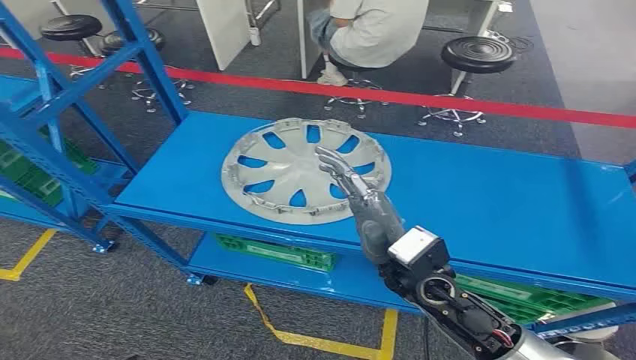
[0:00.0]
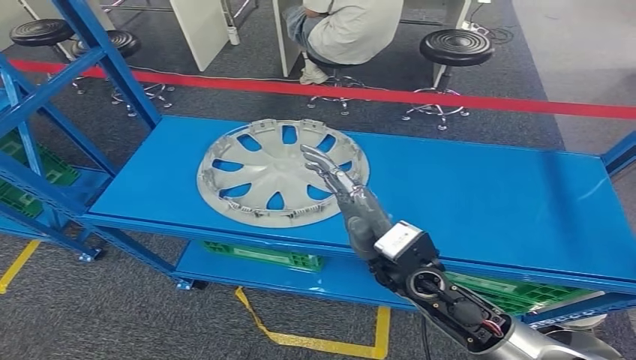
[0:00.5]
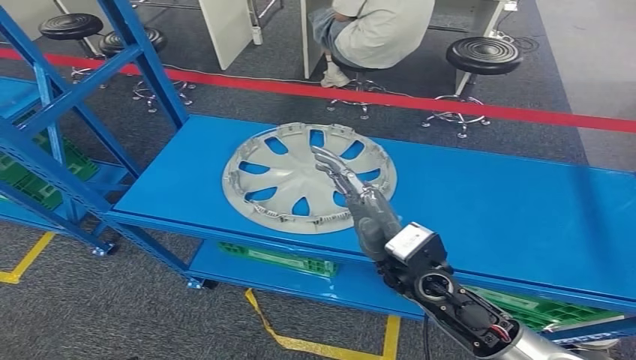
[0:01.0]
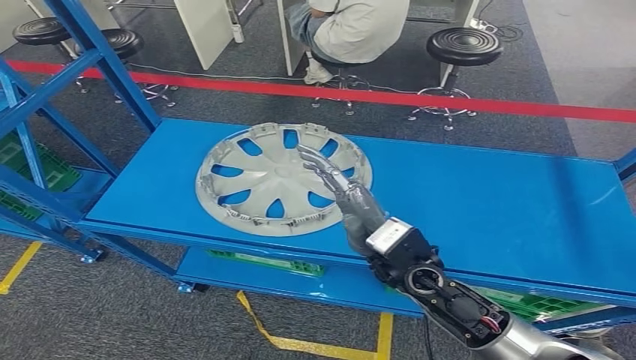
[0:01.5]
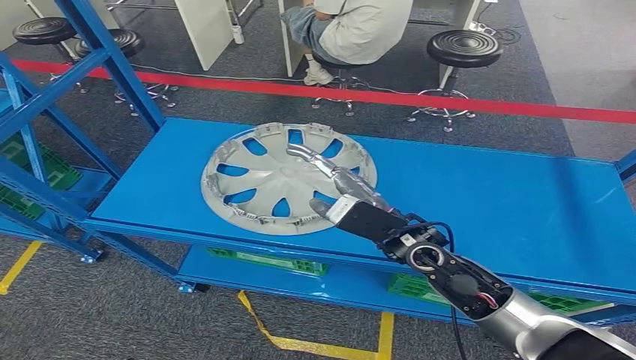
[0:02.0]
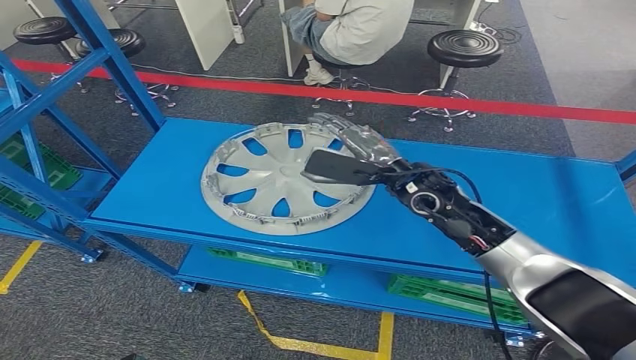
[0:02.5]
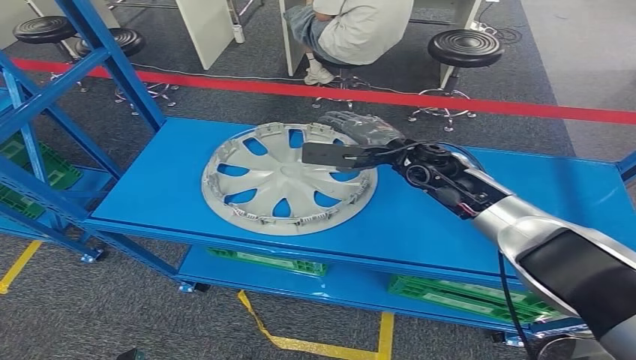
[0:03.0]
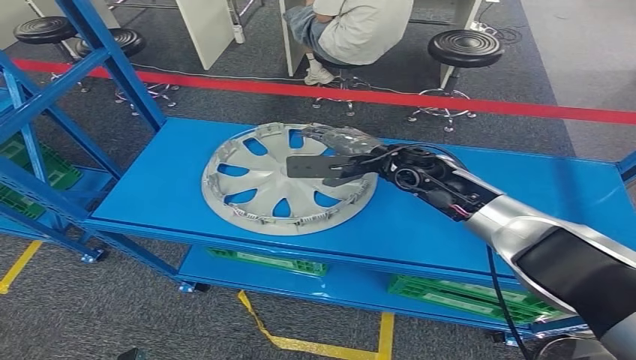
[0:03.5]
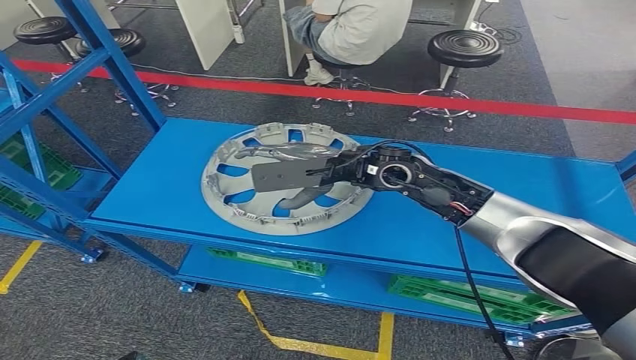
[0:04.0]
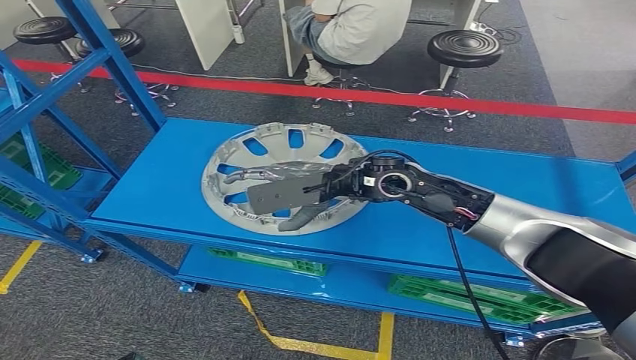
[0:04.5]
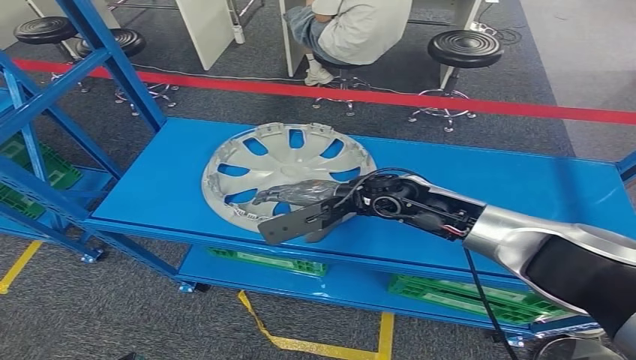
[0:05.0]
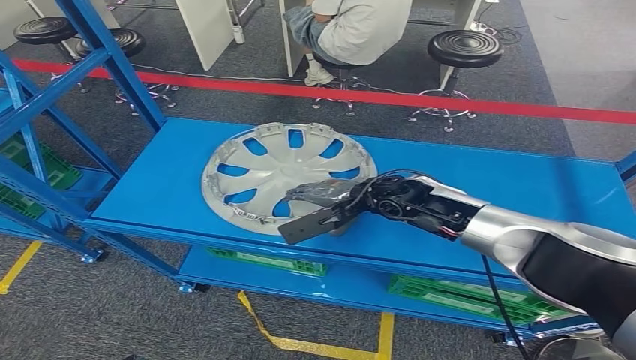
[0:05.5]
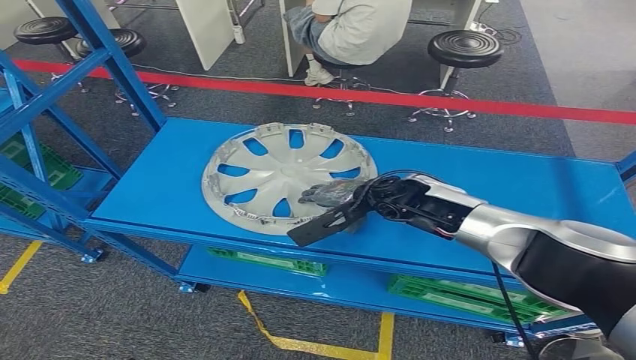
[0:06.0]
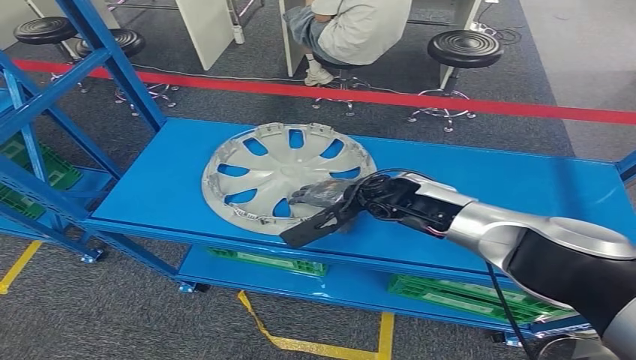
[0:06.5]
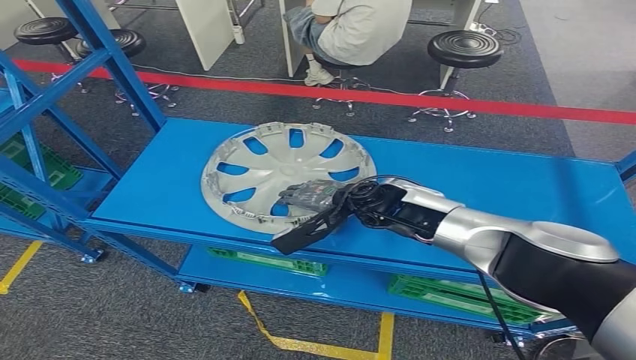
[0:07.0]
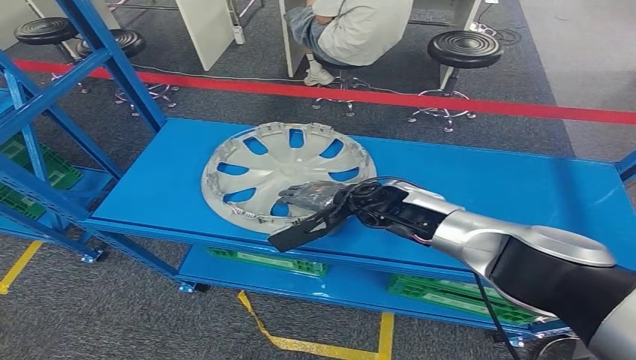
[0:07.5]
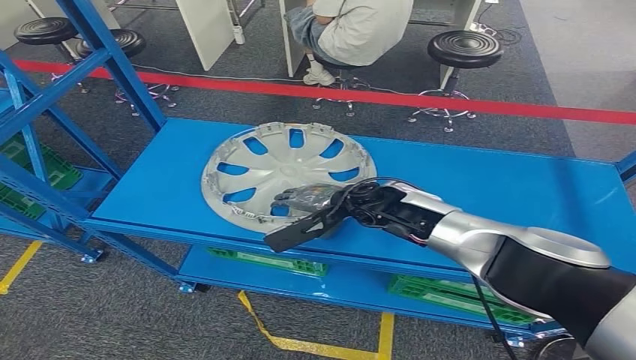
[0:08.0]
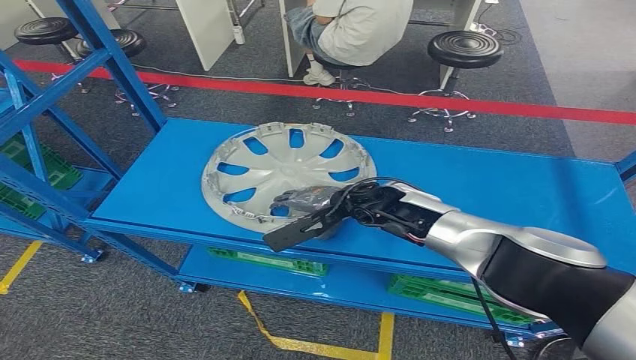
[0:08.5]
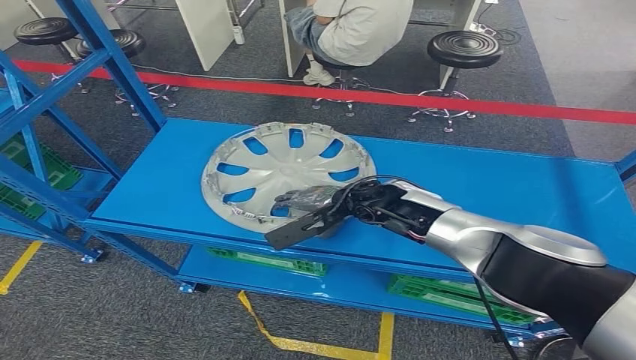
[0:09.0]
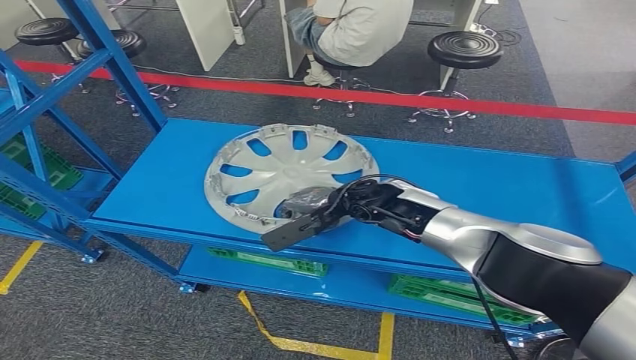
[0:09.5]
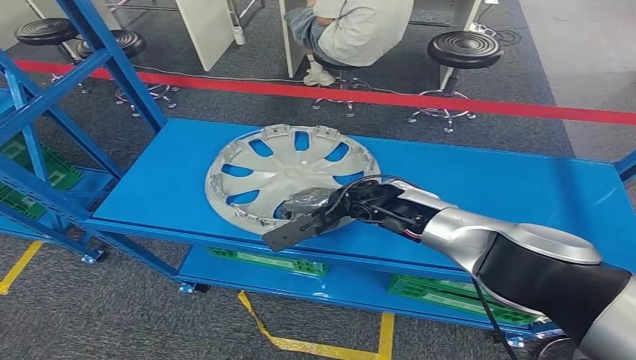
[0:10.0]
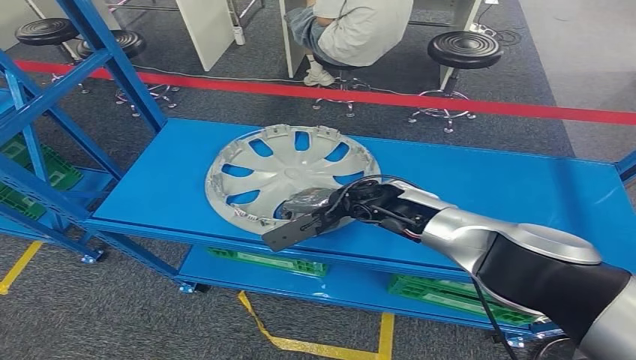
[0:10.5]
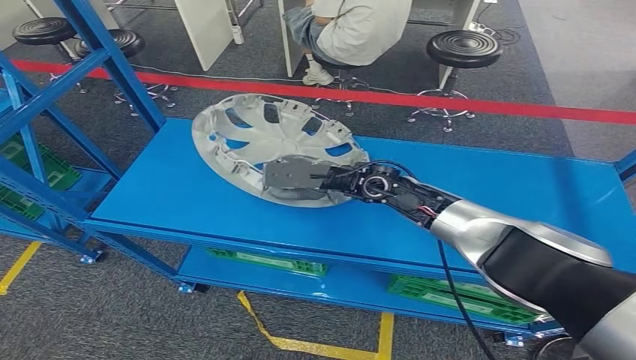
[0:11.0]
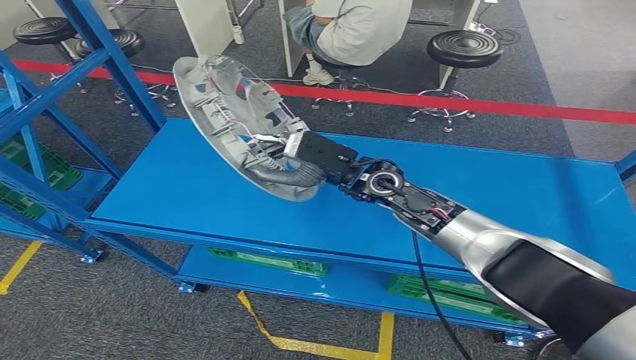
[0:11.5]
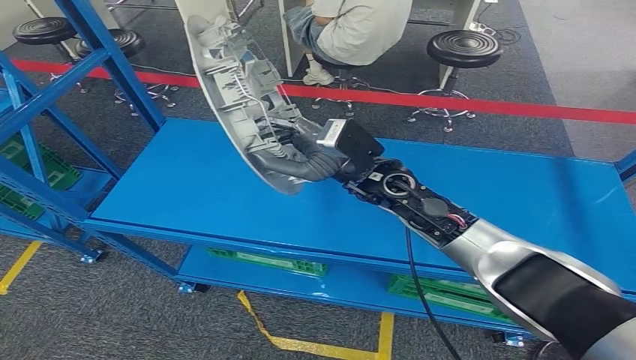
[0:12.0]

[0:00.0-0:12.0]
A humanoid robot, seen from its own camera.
0:02.0 to 0:04.0: The right hand moves forward and upward, about 15 cm.
0:04.0 to 0:06.0: The right hand goes roughly 10 cm downward.
0:06.0 to 0:10.0: The hands move only a little.
0:10.0 to 0:12.0: The right hand heads upward, covering approximately 10 cm.

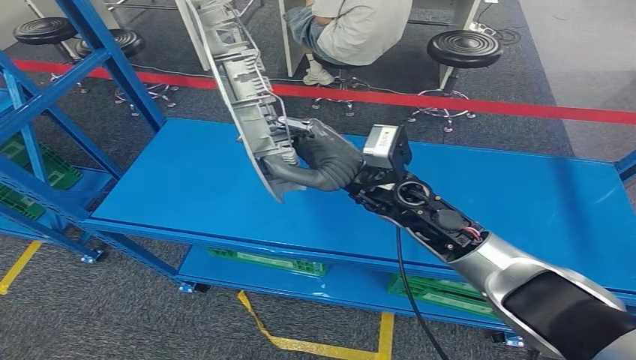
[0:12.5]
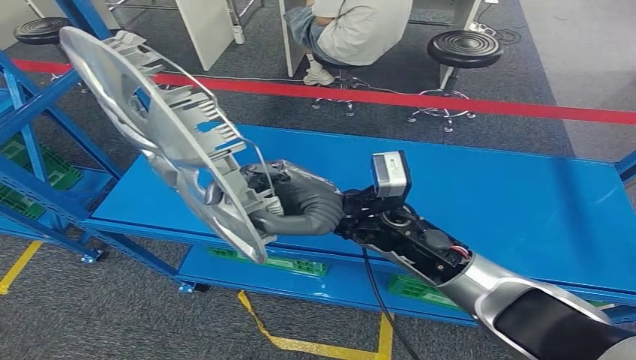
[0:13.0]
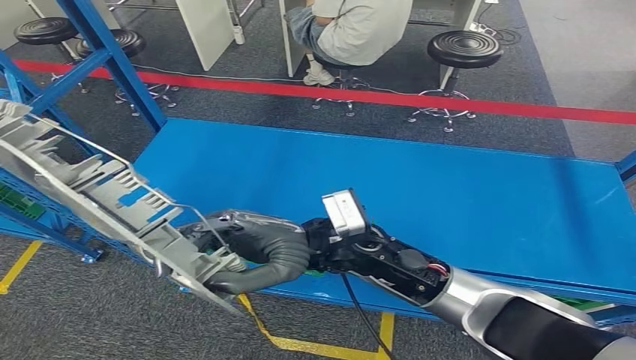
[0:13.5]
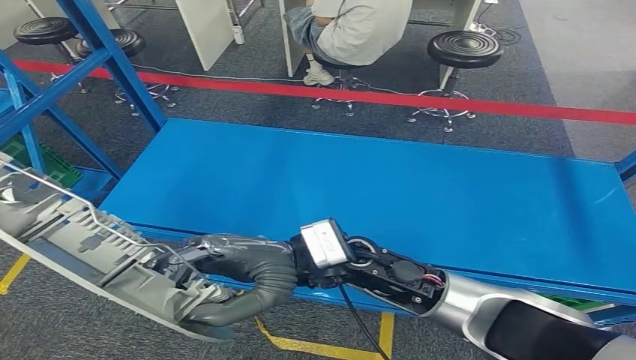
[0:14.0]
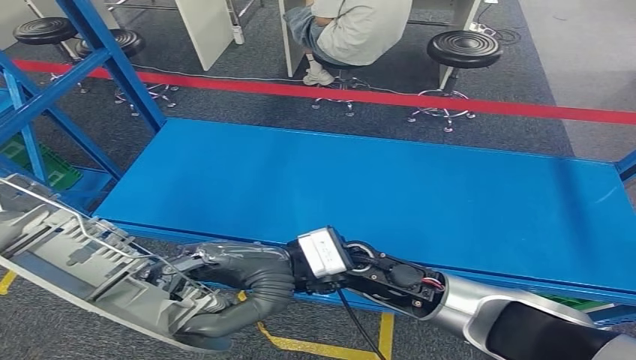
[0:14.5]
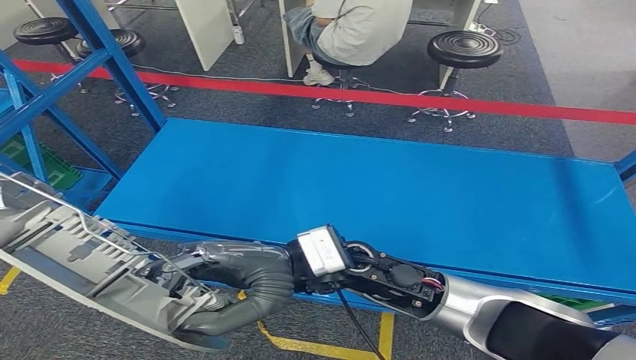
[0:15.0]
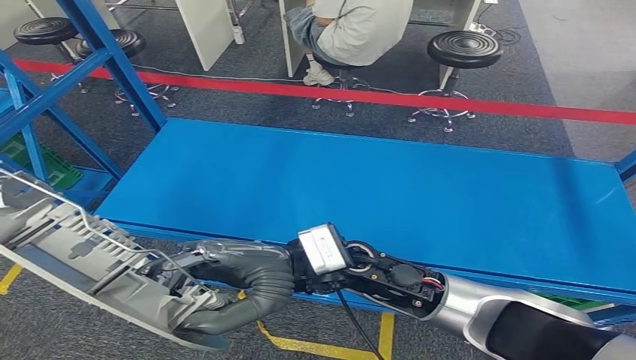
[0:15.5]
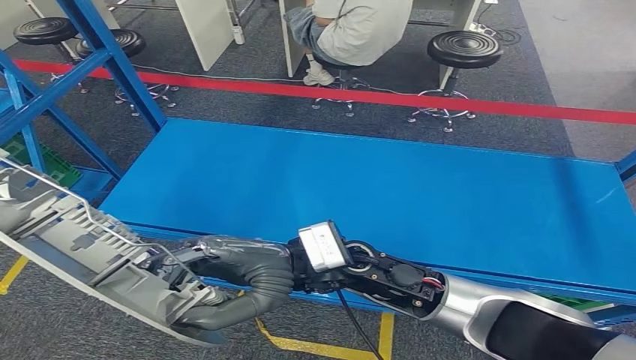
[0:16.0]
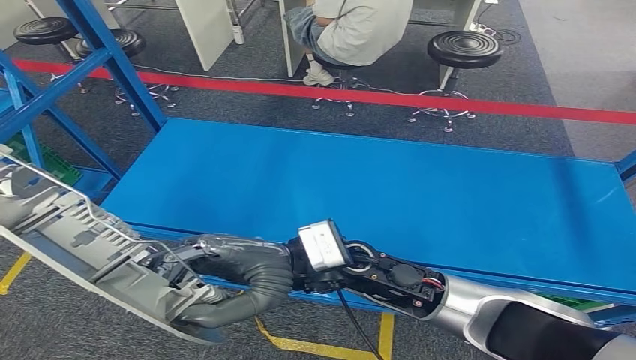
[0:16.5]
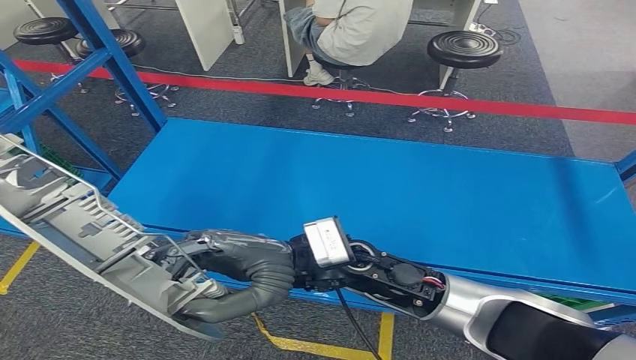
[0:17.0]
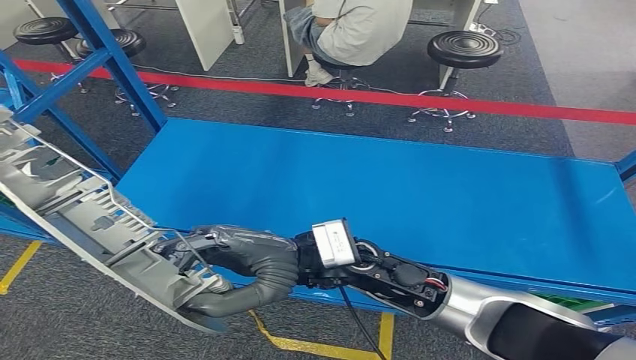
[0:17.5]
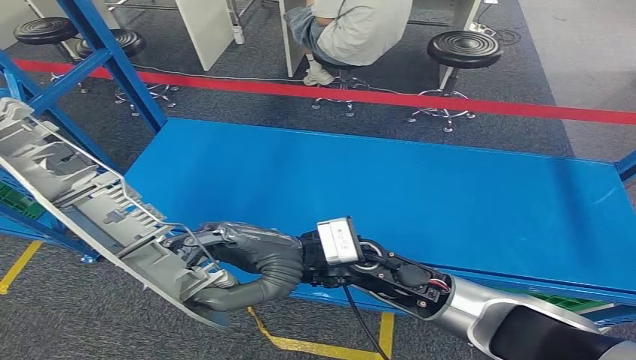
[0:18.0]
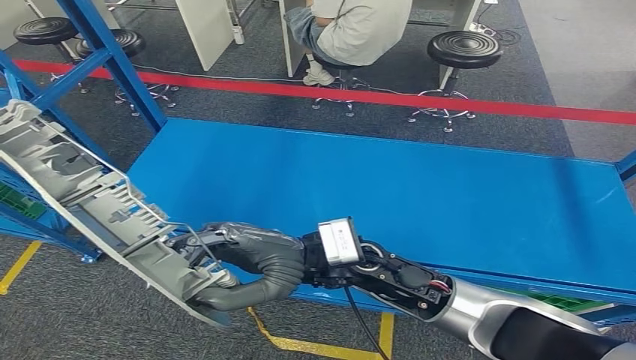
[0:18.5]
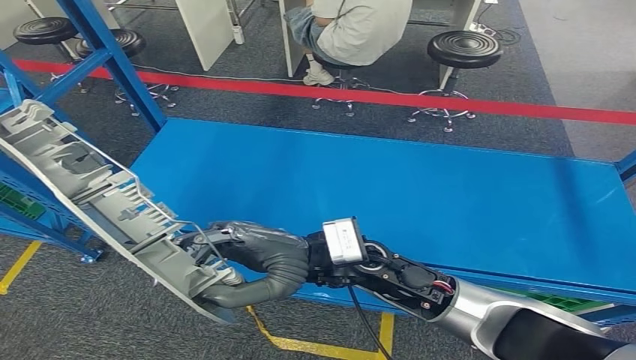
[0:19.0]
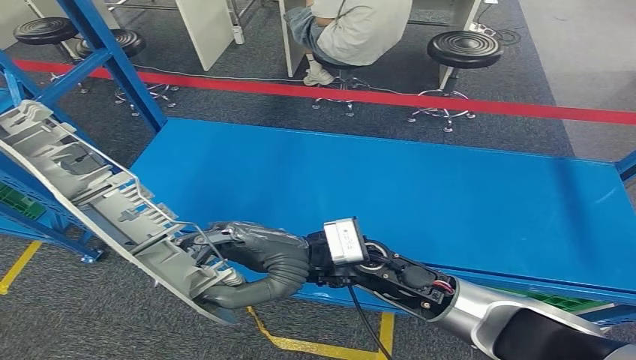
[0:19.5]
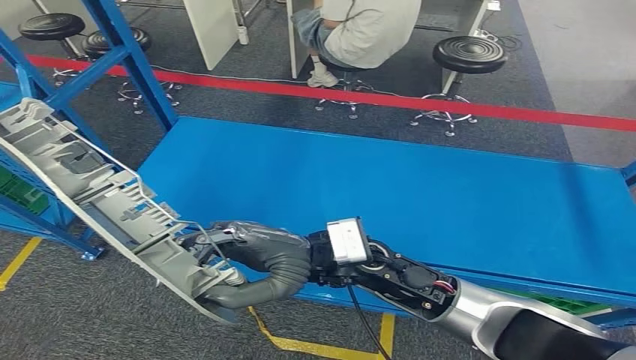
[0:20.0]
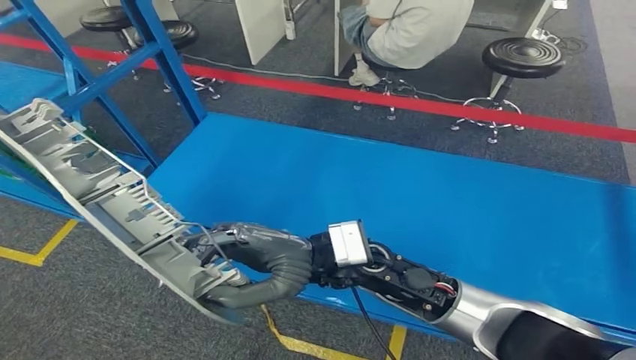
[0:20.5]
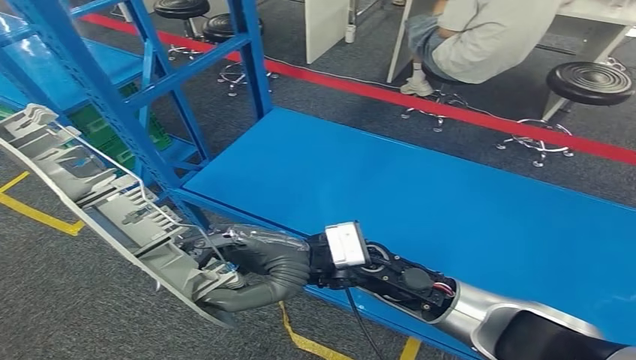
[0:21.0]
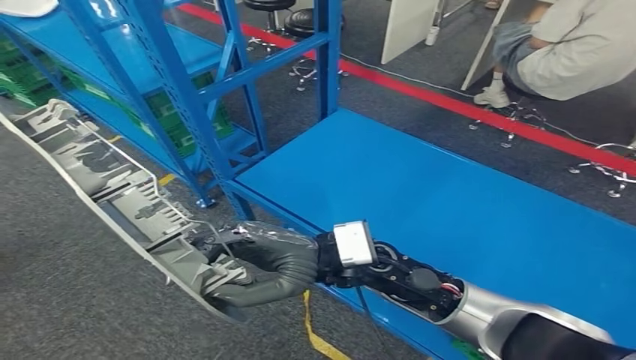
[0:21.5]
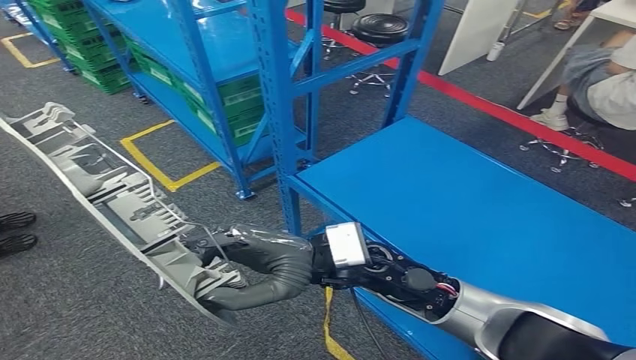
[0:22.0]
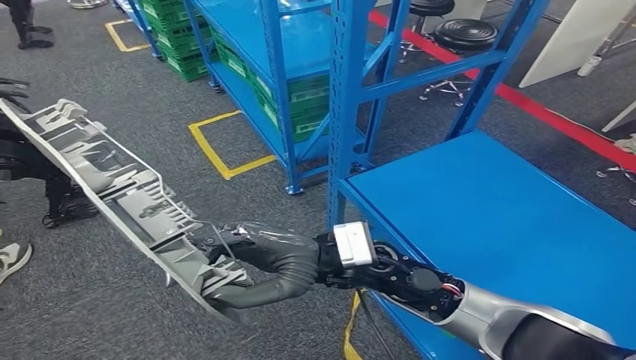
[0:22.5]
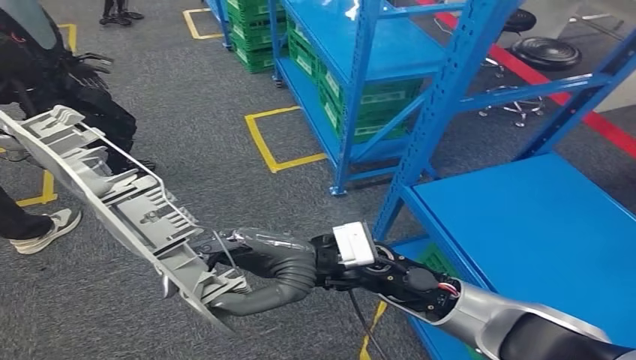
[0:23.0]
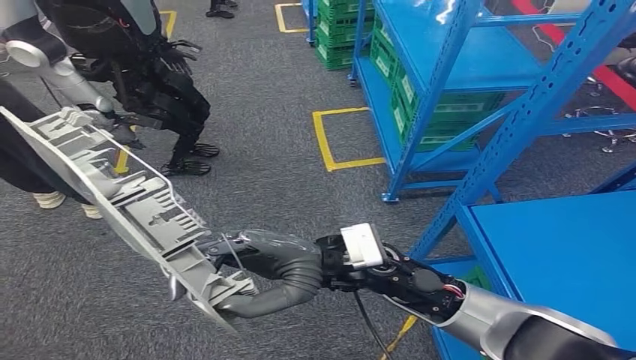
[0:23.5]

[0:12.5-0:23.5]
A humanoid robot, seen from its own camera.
0:14.5 to 0:18.0: The hands move only a little.
0:18.0 to 0:20.0: The two hands keep their place.
